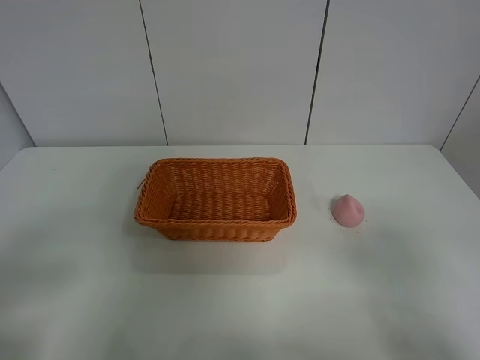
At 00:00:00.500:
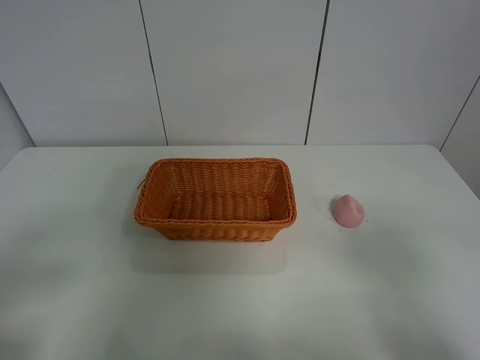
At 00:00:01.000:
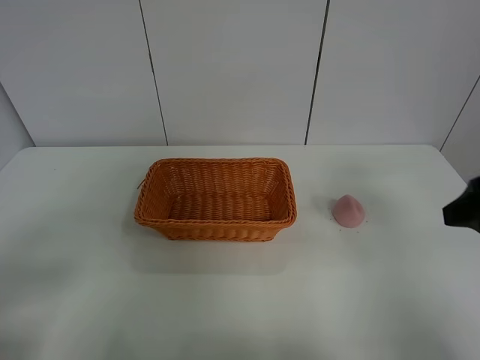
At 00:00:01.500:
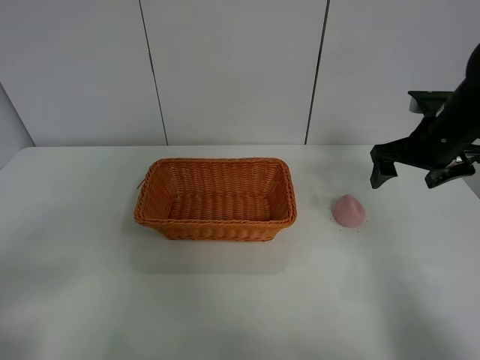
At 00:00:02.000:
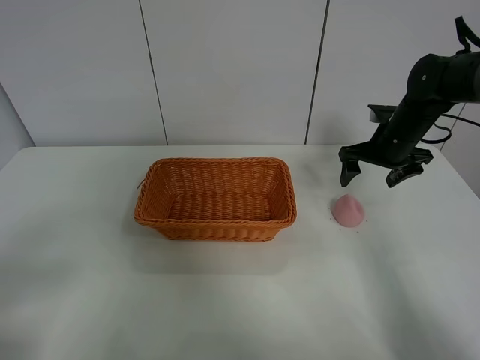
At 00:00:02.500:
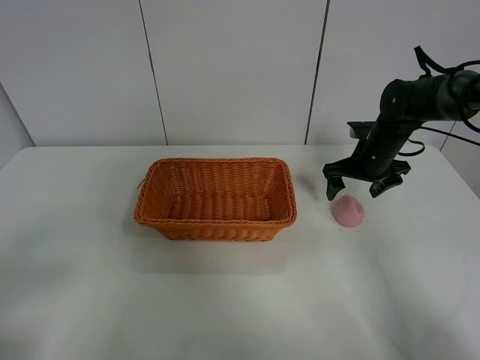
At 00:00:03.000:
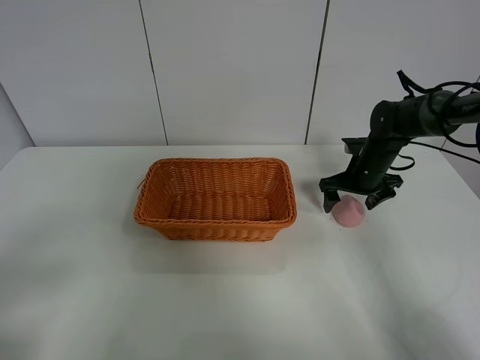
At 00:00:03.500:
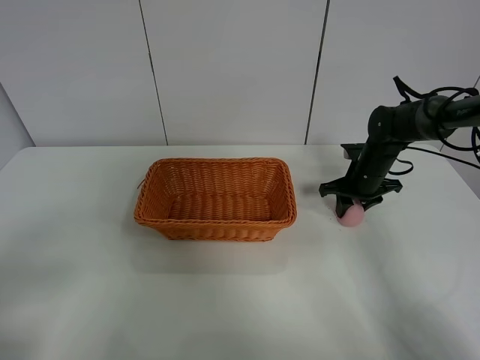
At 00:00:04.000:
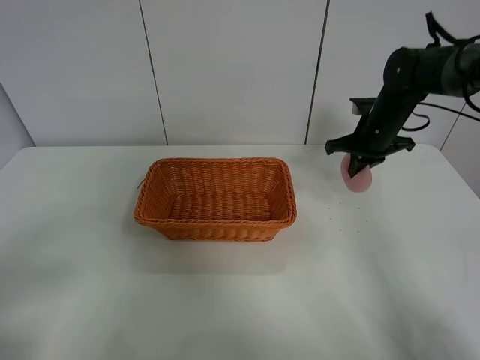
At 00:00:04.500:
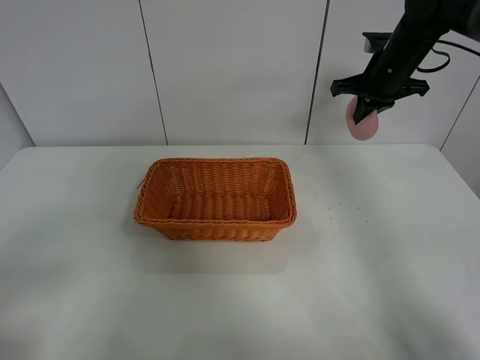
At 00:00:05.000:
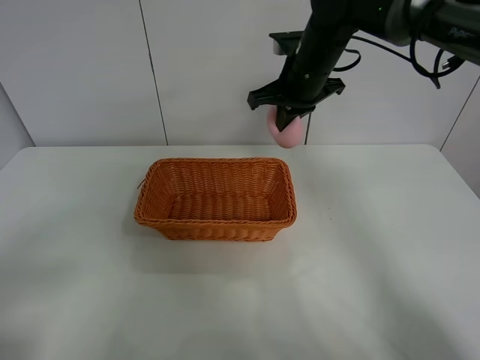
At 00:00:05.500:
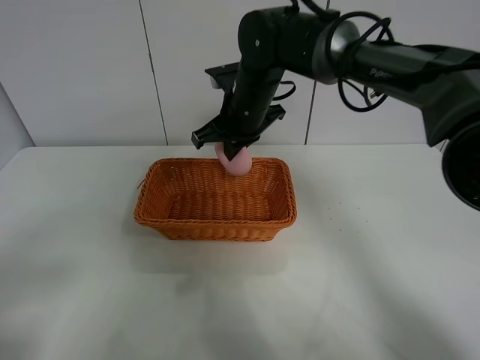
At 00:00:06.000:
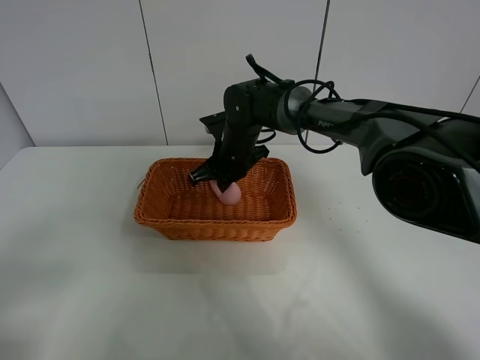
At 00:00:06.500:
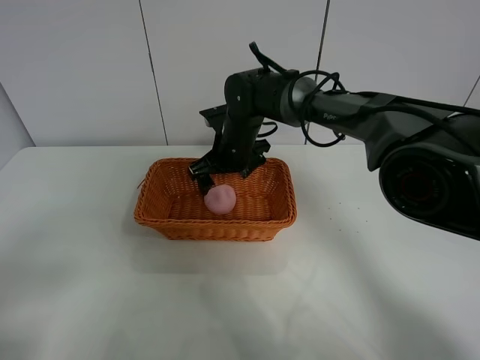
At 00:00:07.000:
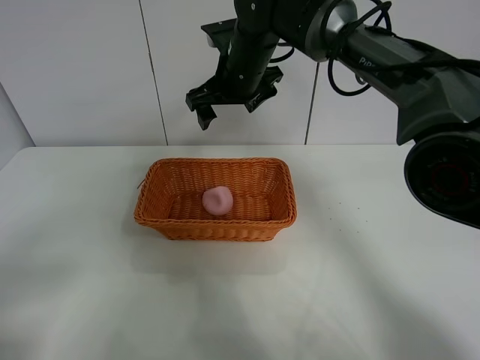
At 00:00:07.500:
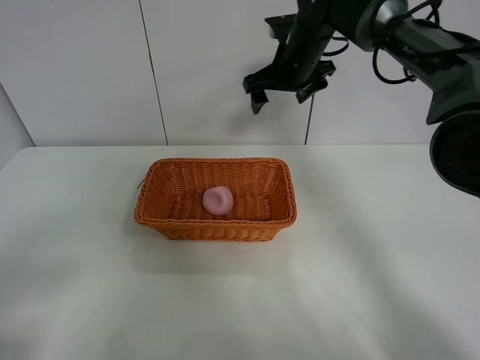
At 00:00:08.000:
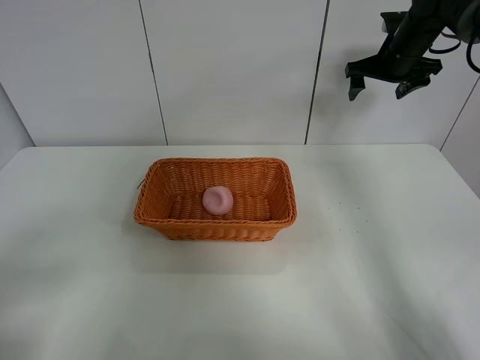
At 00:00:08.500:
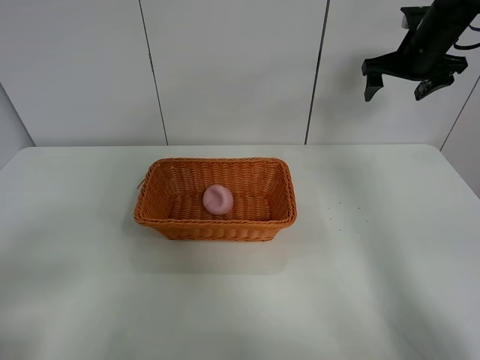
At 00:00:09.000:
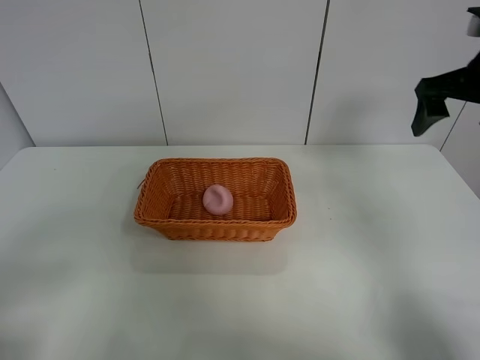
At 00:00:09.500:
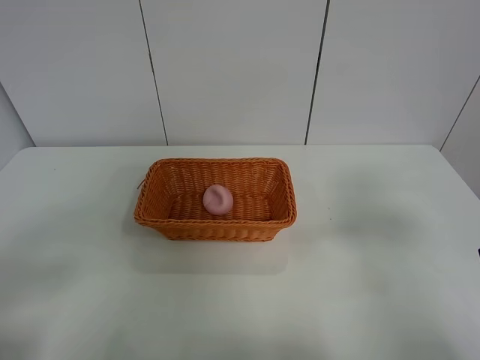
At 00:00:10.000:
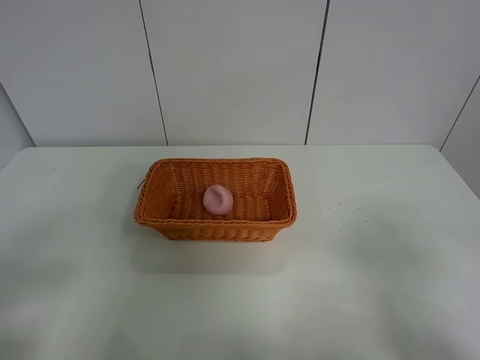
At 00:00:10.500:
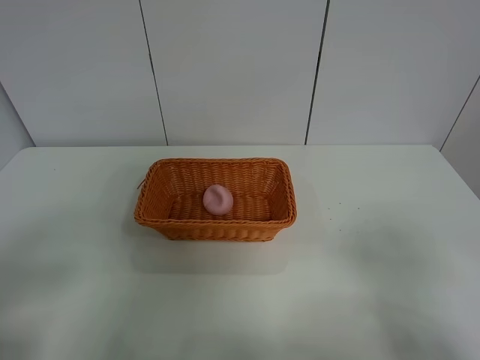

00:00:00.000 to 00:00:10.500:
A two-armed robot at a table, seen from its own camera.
Step, 00:00:00.000 to 00:00:03.500: Grasp the peach with right gripper.
Step, 00:00:04.000 to 00:00:07.000: Place the peach in the basket with right gripper.
00:00:00.000 to 00:00:02.000: The right gripper heads forward, covering some 40 cm.
00:00:02.000 to 00:00:04.000: The right gripper travels downward and back again, about 10 cm each way, and closes.
00:00:04.000 to 00:00:06.500: The right gripper heads to the left, covering roughly 25 cm, and opens up.
00:00:06.500 to 00:00:08.500: The right gripper is displaced to the right and upward by approximately 30 cm.
00:00:08.500 to 00:00:10.500: The right gripper travels backward by approximately 50 cm.
